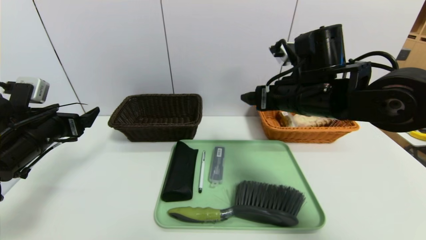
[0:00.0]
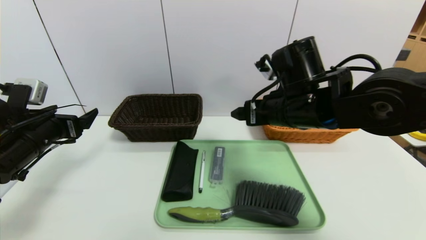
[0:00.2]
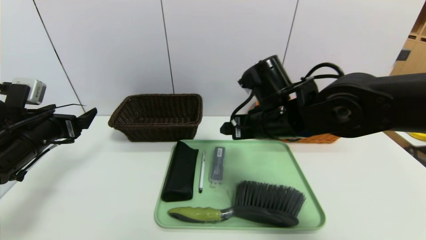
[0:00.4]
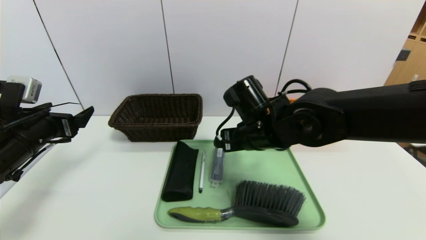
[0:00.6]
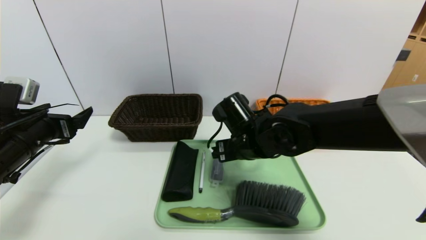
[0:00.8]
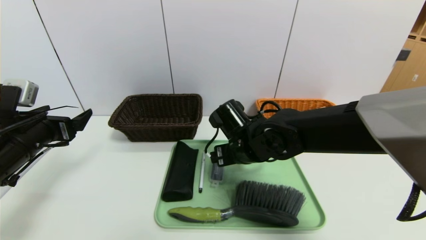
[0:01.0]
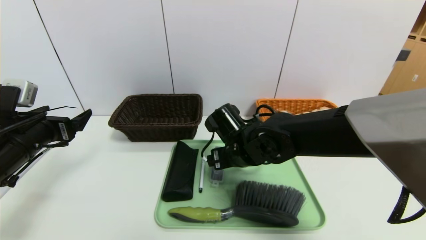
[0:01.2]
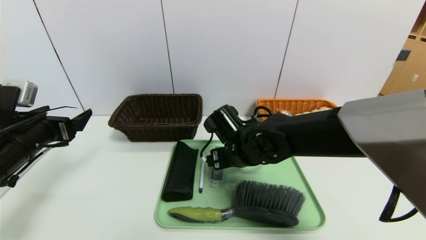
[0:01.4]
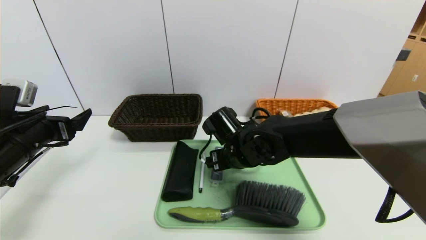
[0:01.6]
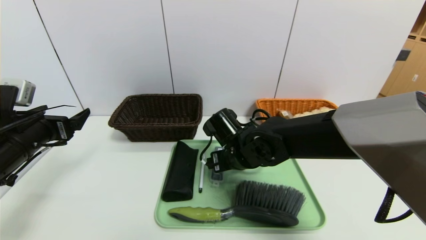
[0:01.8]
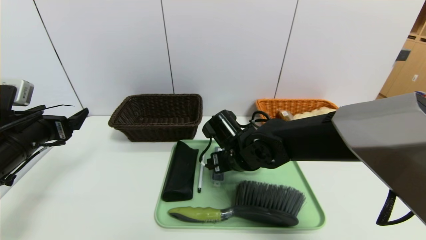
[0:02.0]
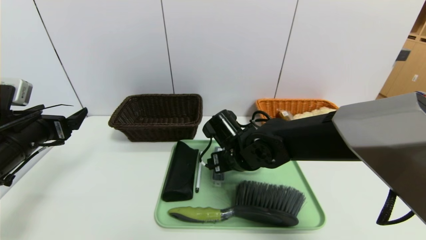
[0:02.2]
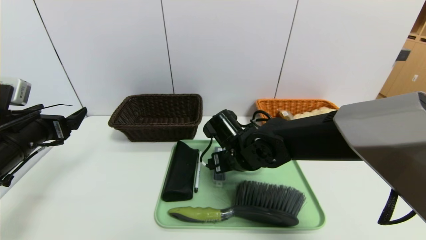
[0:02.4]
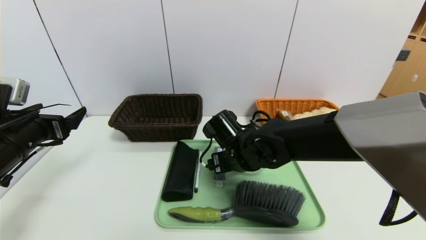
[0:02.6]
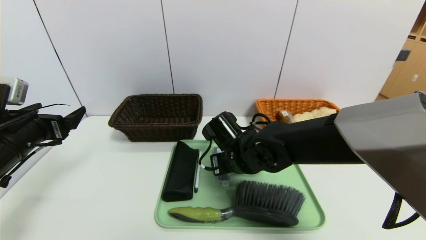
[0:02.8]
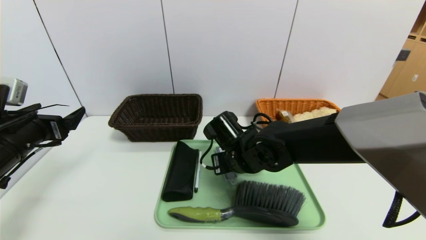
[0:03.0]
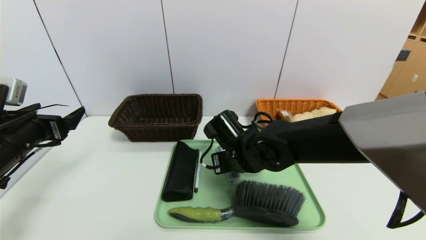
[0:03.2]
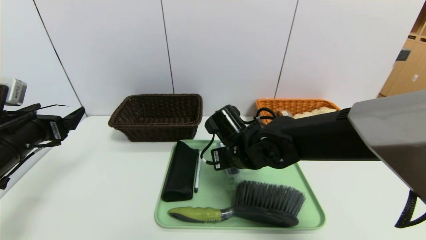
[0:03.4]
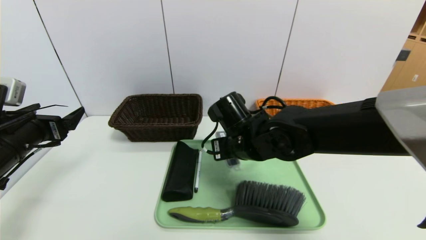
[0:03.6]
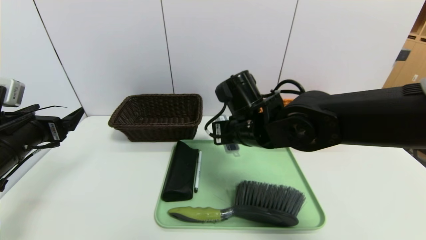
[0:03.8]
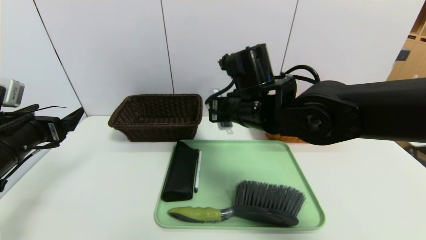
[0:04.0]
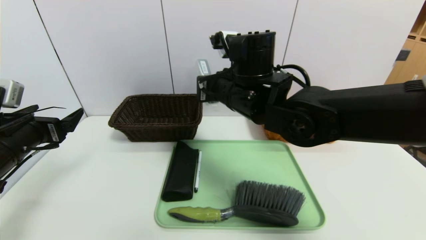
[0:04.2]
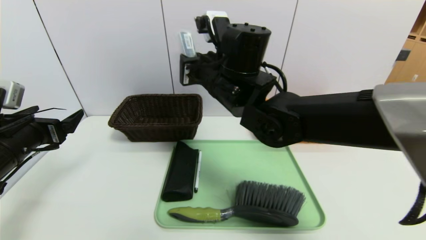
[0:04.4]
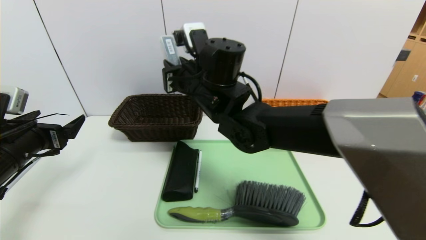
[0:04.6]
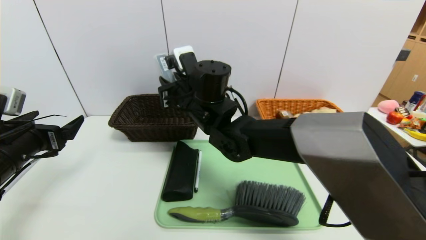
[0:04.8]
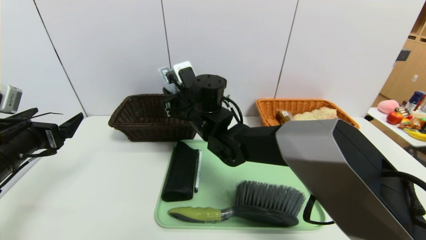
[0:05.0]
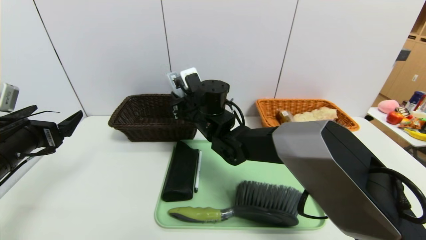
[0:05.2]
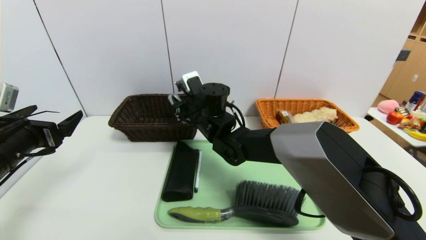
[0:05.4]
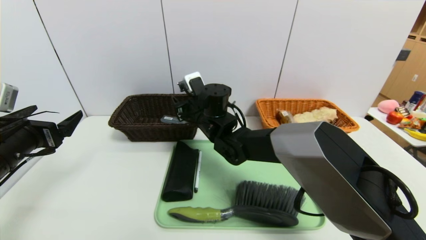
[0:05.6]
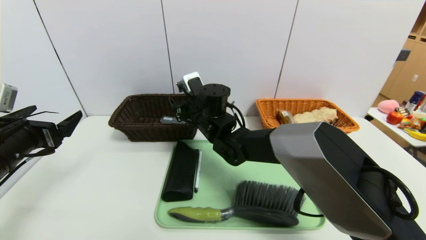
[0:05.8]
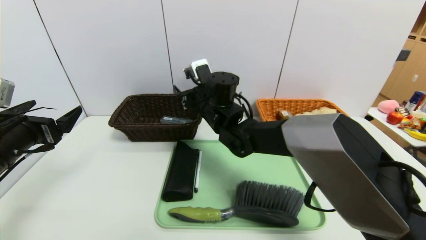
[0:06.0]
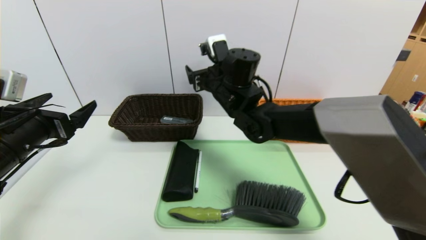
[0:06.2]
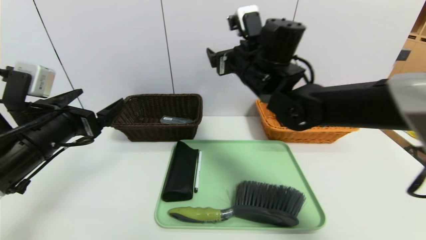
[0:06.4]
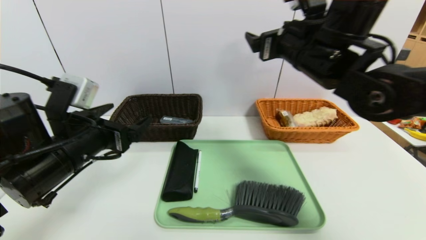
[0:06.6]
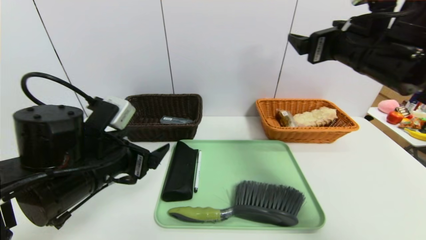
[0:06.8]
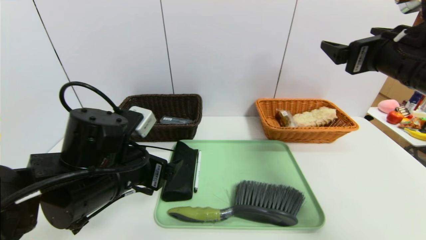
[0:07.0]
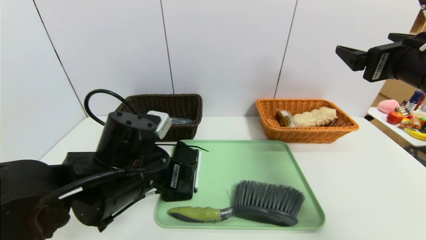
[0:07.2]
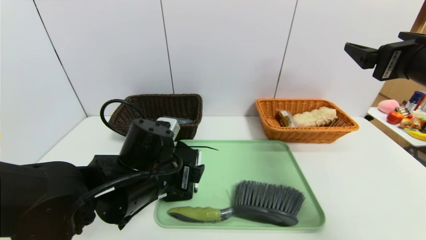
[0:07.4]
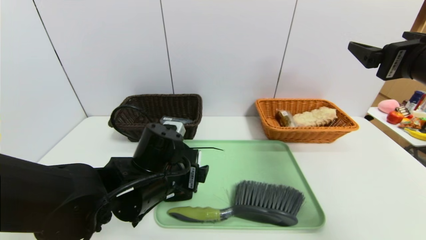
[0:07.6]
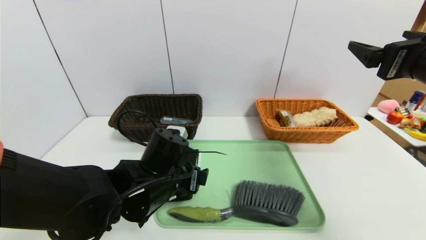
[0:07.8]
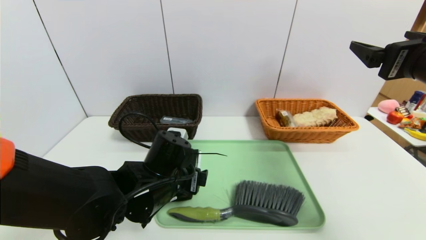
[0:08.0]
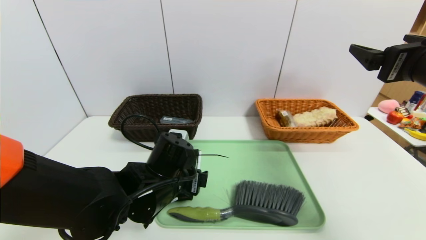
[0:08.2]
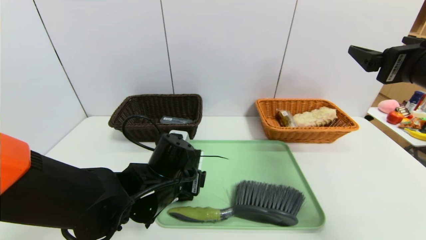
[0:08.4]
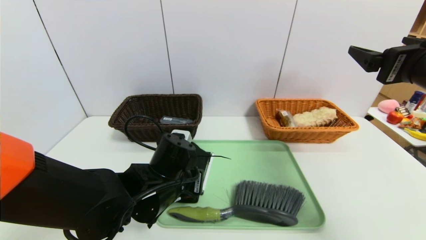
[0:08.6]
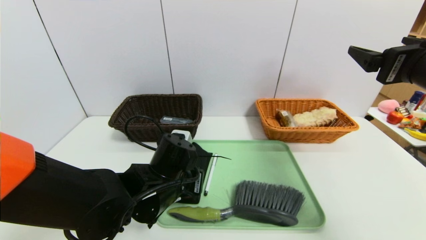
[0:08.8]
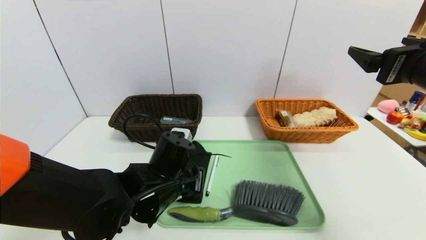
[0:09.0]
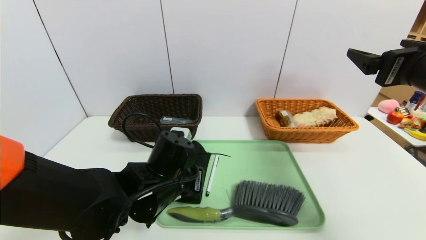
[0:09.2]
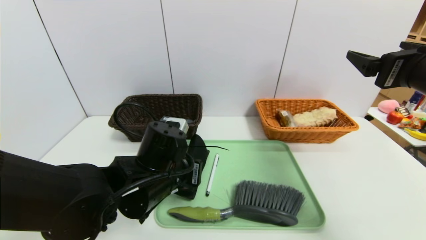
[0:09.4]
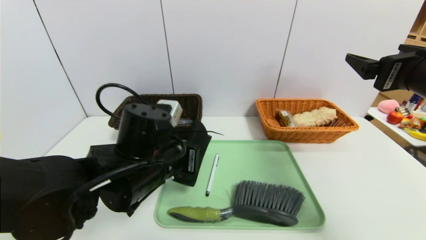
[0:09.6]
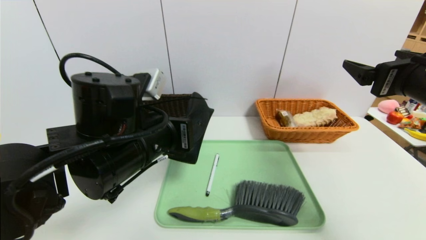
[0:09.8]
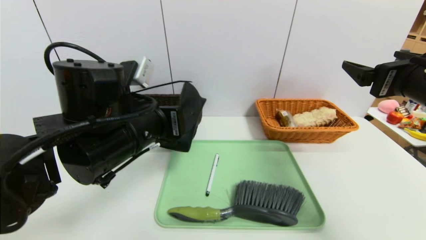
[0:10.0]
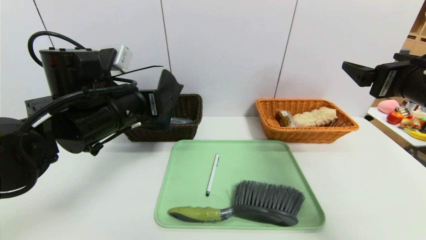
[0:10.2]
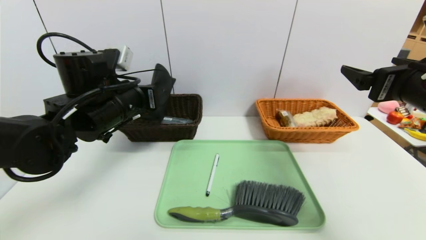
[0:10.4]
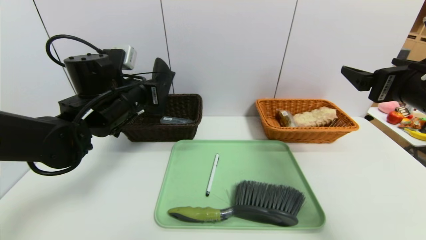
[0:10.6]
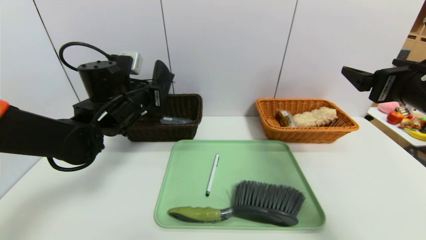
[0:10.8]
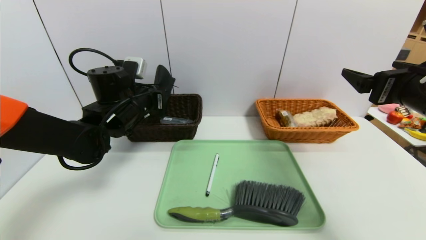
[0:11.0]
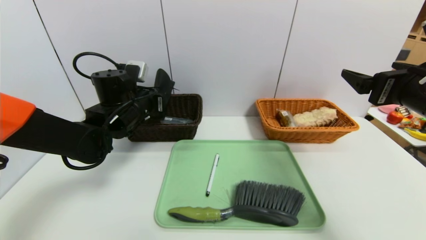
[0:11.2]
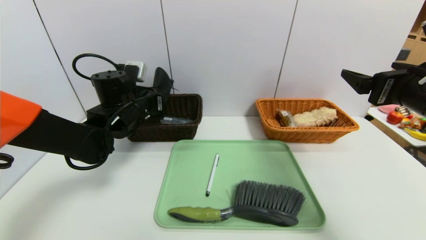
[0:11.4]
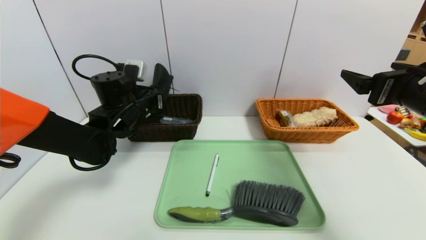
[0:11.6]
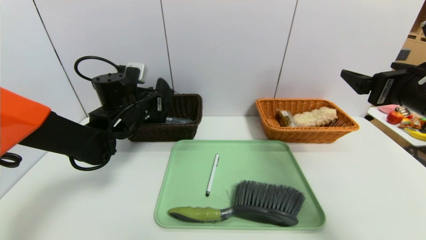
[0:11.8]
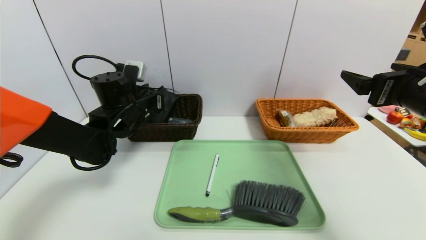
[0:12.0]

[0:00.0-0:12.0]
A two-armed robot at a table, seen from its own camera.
Task of the whole recording: place the food in the right basket with the right gripper, and place the non food items in the left basket with the left gripper.
0:00.0 to 0:01.6: The right gripper goes roughly 15 cm downward and to the left.
0:01.6 to 0:03.0: The right gripper closes its fingers.
0:03.0 to 0:04.4: The right gripper moves upward, roughly 15 cm.
0:04.4 to 0:06.0: The right gripper moves downward and forward, roughly 10 cm, and opens.
0:06.0 to 0:07.6: The left gripper travels to the right by roughly 25 cm. Meanwhile the right gripper shifts about 35 cm to the right, backward and upward.
0:07.6 to 0:09.0: The left gripper closes up.
0:09.0 to 0:10.4: The left gripper shifts some 15 cm upward, to the left and forward.
0:10.4 to 0:12.0: The left gripper travels forward by some 10 cm, and opens its fingers.

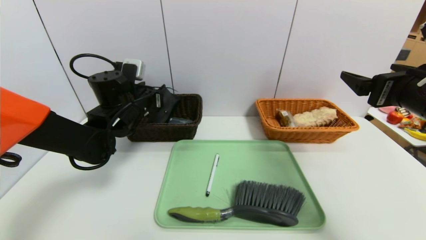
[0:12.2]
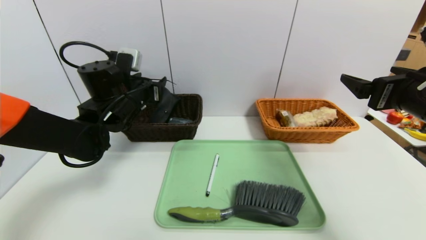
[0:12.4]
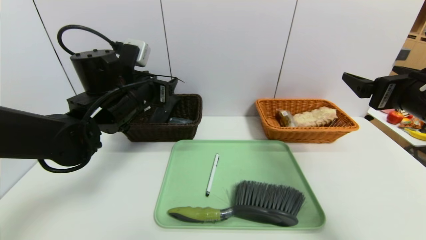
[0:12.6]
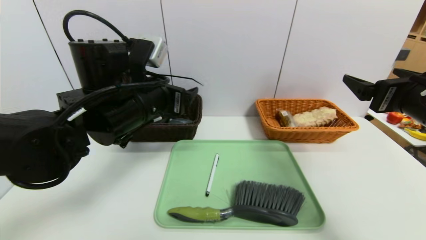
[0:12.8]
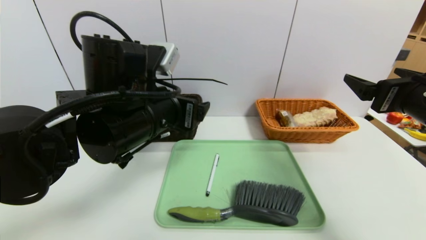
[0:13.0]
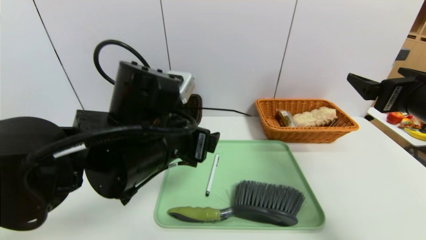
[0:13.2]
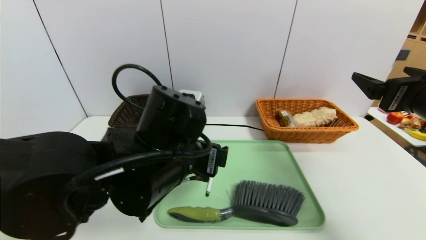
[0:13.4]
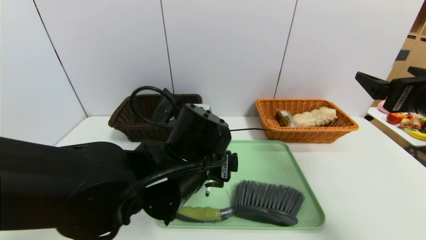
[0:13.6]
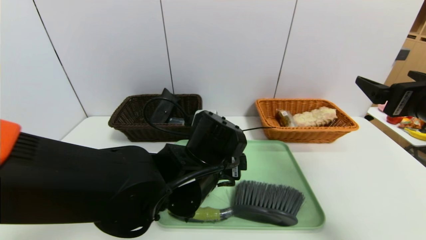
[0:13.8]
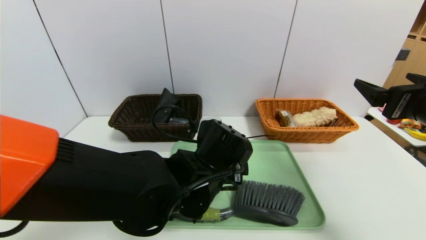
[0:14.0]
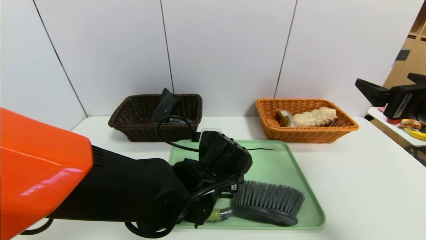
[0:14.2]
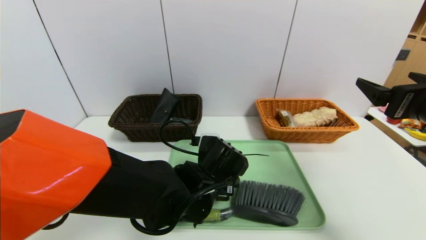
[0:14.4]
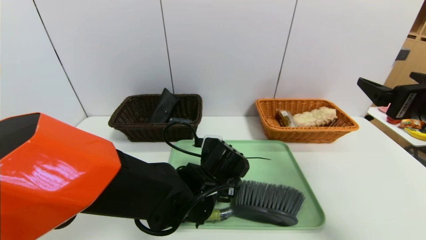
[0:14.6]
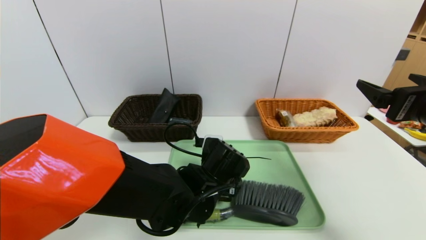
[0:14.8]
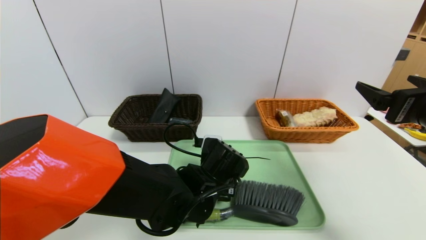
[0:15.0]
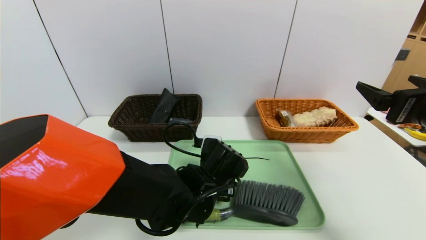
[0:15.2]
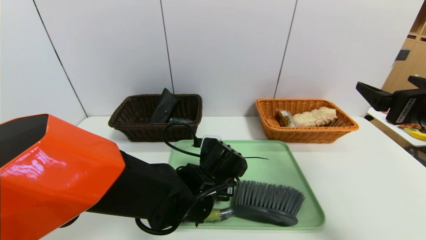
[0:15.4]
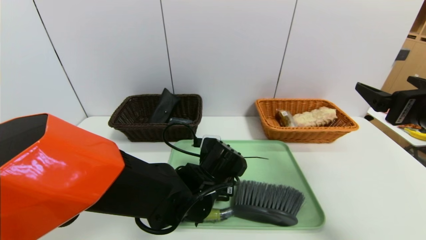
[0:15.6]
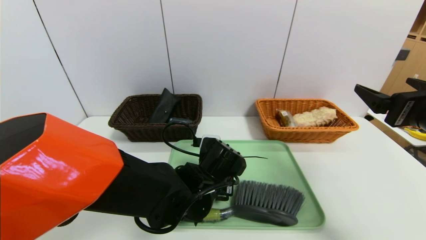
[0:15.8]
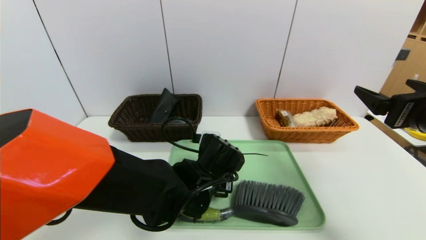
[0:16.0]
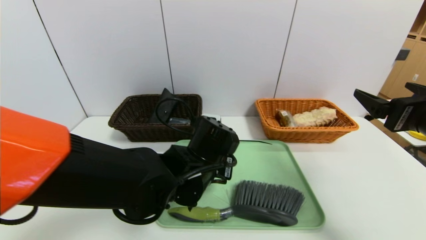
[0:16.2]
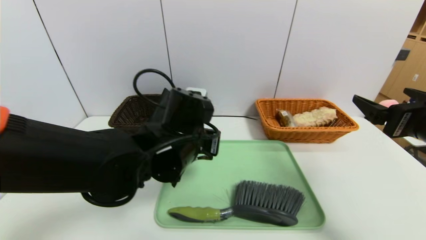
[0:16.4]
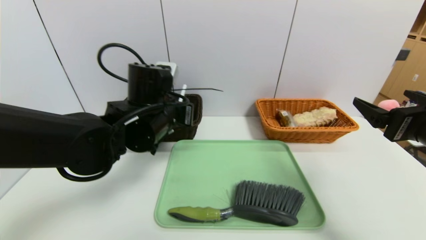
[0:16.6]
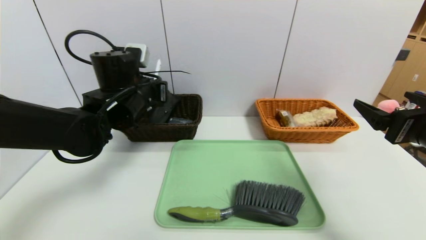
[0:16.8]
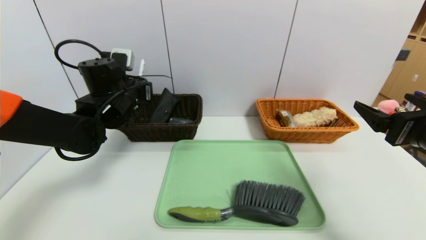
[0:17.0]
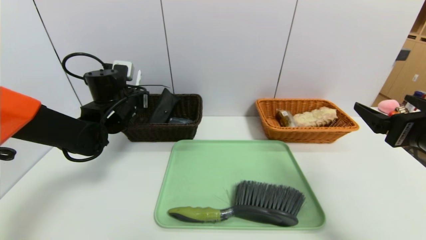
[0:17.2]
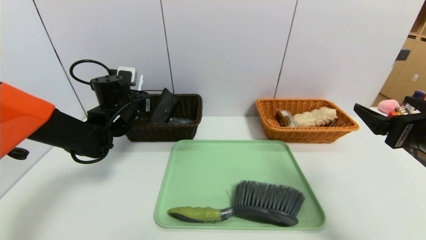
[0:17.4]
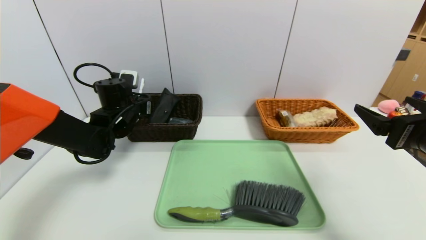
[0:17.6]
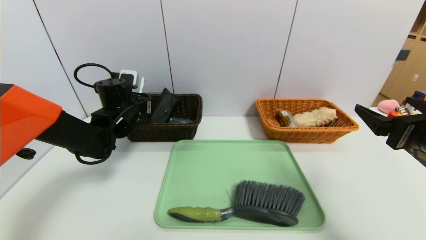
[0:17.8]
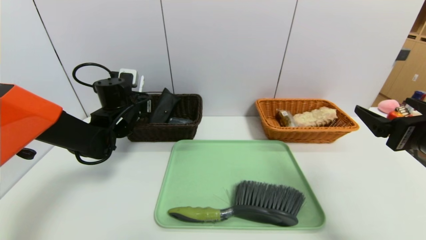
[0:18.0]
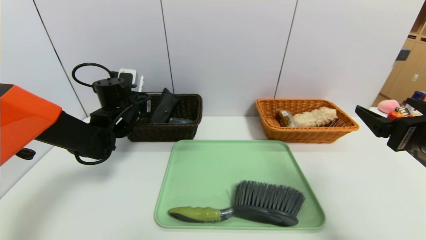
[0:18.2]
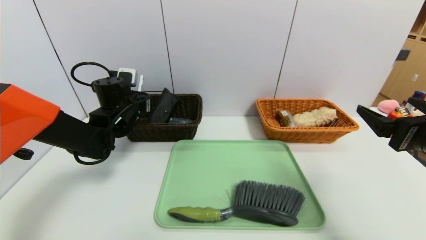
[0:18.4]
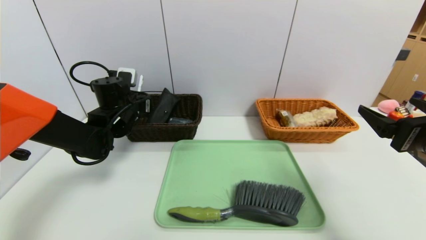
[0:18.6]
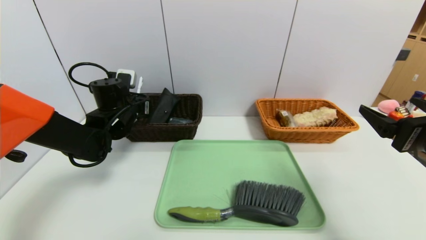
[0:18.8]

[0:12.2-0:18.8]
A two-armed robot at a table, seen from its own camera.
Task of the whole recording: place the food in the right basket with the right gripper, and place the non food items in the left basket with the left gripper.
0:12.2 to 0:13.8: The left gripper is displaced to the right and backward by some 25 cm.
0:13.8 to 0:15.4: The left gripper shifts some 5 cm downward, and closes.
0:15.4 to 0:17.2: The left gripper heads to the left, forward and upward, covering approximately 25 cm.
0:17.2 to 0:18.8: The grippers make only small movements.
